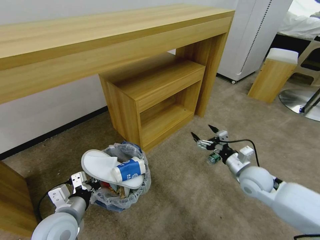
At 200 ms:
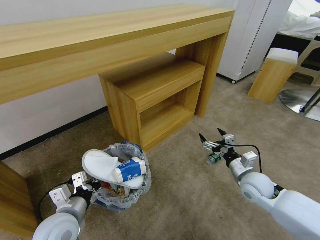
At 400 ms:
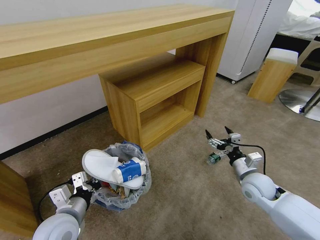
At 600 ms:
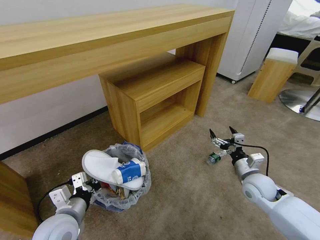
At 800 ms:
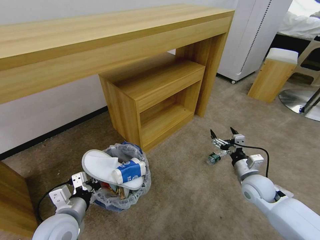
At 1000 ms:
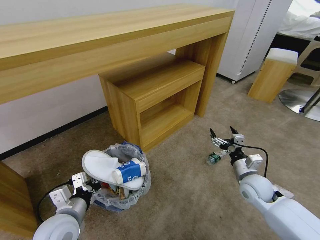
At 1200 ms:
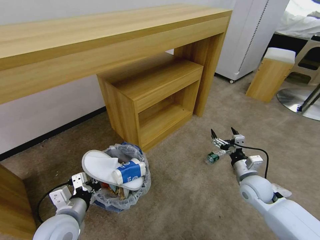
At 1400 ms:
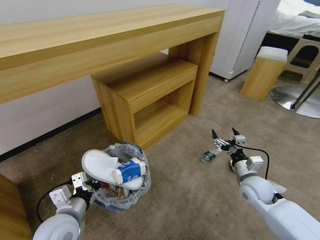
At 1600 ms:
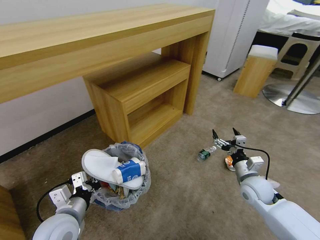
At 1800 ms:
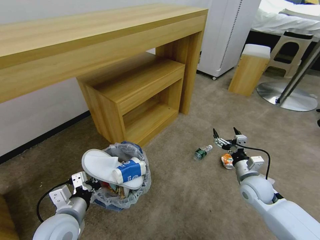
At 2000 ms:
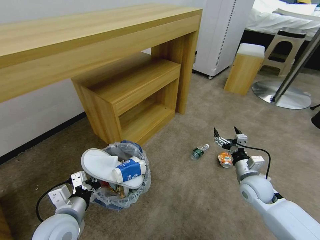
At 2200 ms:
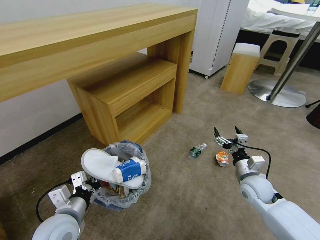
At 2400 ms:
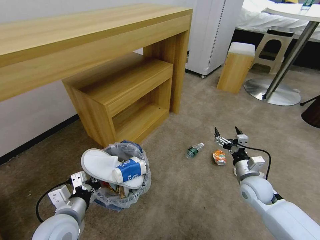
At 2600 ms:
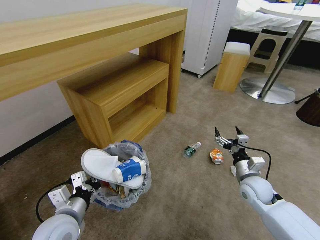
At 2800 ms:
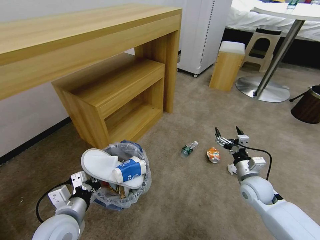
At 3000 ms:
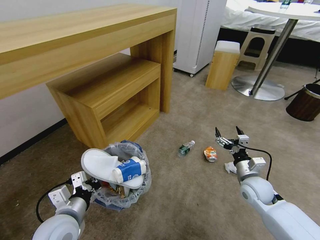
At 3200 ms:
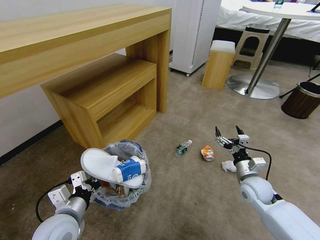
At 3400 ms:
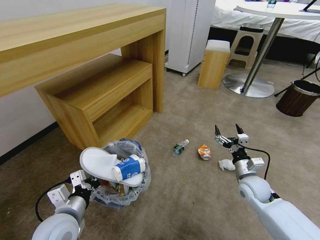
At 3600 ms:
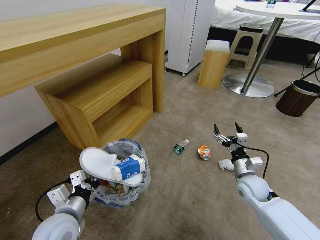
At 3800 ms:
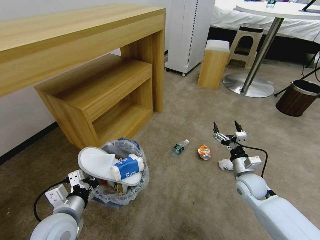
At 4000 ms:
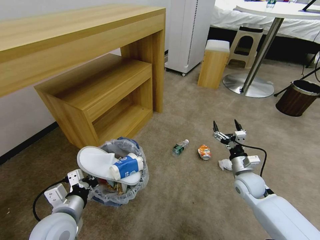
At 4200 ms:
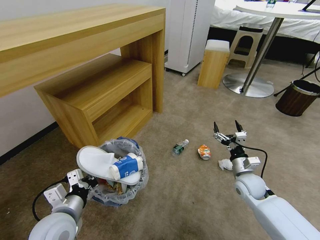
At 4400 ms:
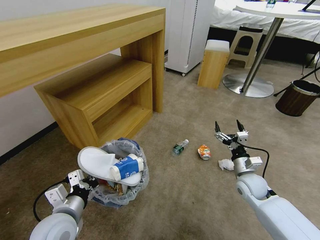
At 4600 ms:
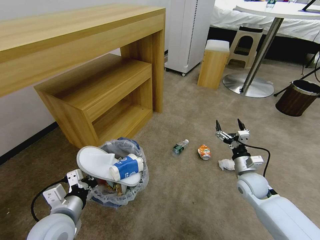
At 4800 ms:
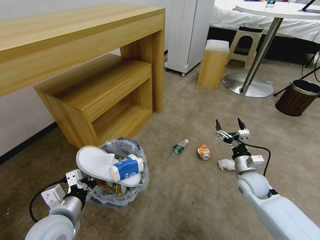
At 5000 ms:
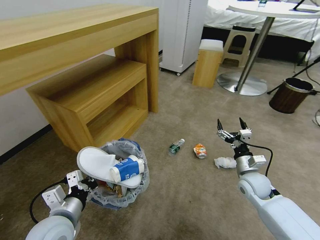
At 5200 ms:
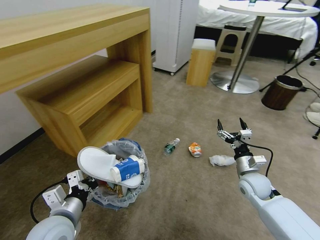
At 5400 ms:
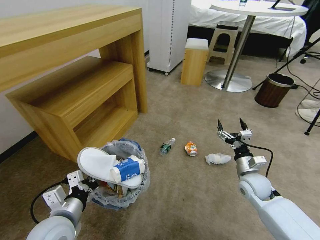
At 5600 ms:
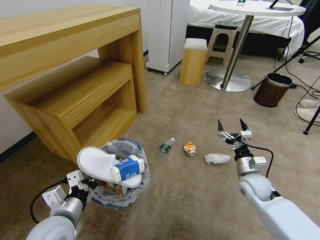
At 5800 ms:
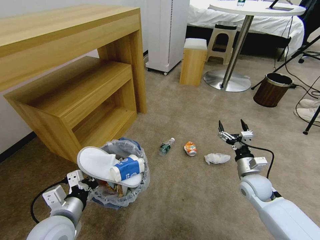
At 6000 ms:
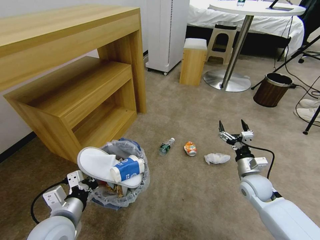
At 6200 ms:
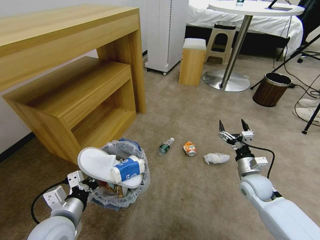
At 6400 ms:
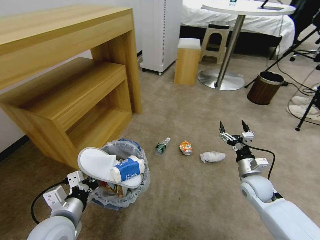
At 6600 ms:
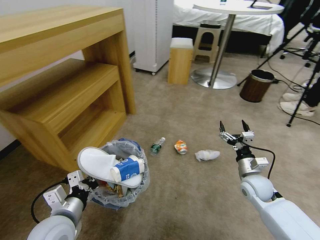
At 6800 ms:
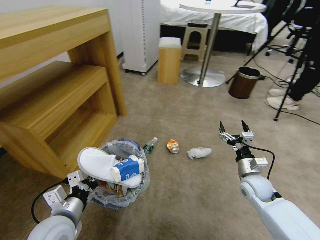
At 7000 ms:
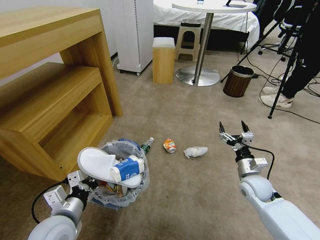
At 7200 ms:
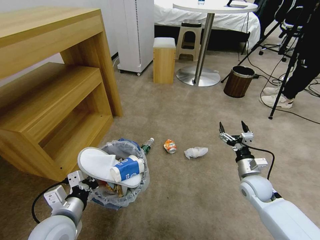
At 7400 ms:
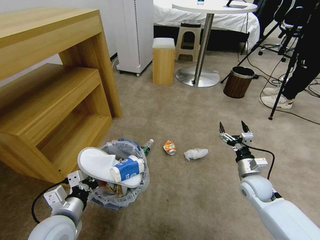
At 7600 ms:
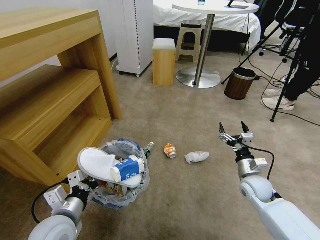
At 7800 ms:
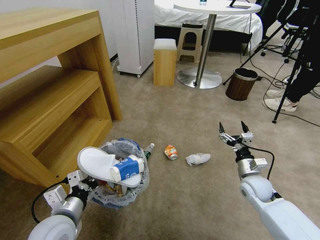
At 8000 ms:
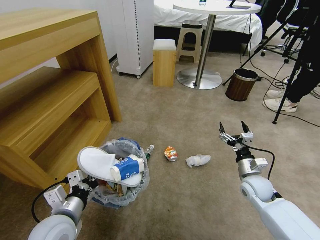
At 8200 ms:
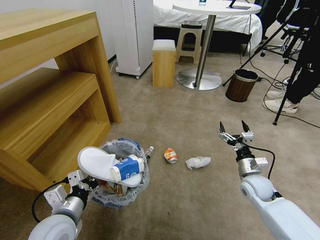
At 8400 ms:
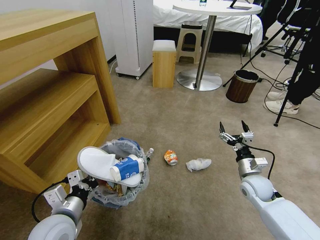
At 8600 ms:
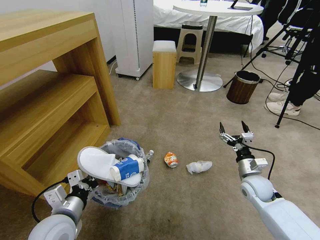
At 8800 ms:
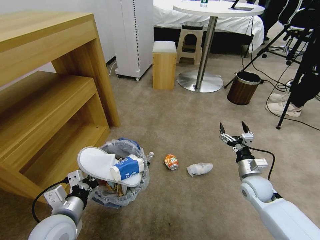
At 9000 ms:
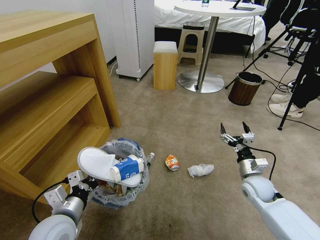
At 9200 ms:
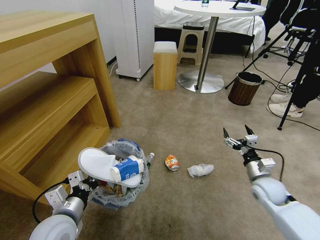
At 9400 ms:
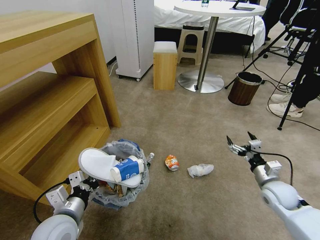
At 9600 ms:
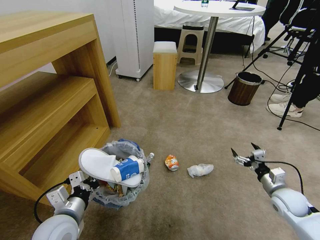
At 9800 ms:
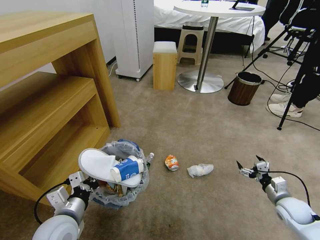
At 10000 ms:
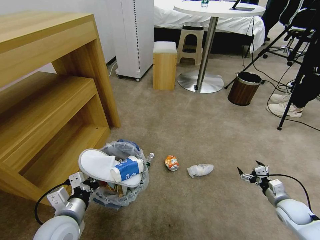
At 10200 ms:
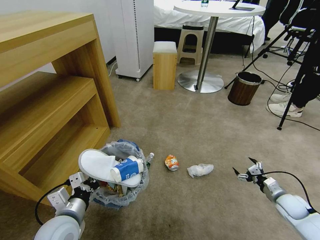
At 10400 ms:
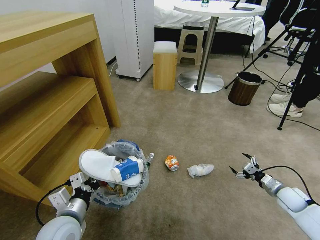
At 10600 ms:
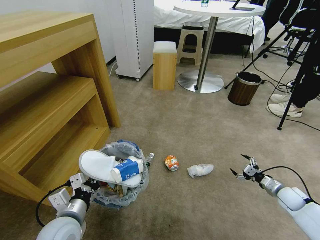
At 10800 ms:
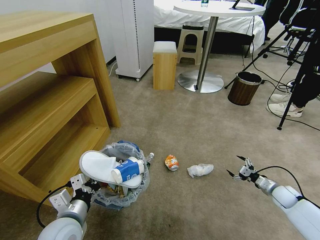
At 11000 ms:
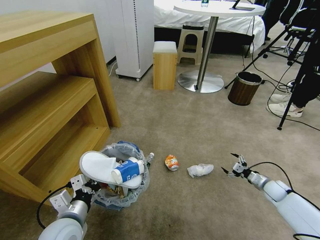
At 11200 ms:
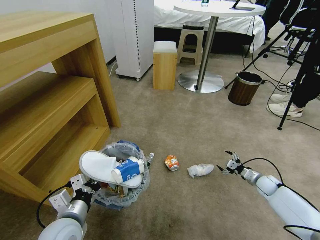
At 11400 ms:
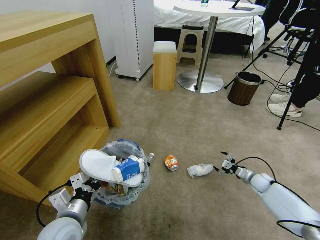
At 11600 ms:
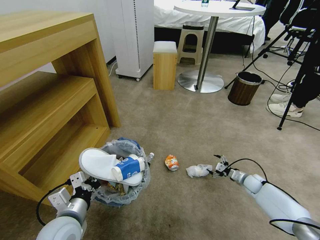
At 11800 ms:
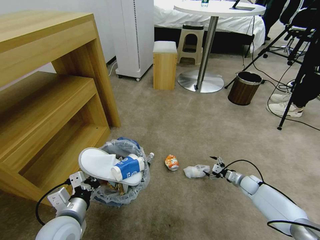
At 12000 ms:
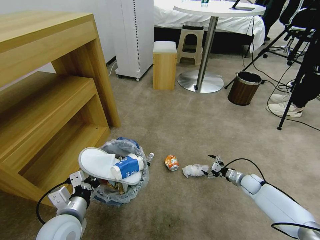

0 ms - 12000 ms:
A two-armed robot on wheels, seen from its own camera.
Task of the whole recording: Pick up the trash bin and place the garbage on the floor into it.
0 ms - 1600 ms: The right gripper moves approximately 5 cm.
9000 ms - 10400 ms: The right gripper travels to the right and downward by some 15 cm.
10400 ms - 12000 ms: The right gripper shifts roughly 15 cm forward, to the left and downward.

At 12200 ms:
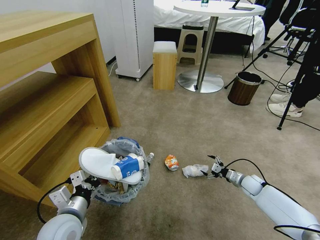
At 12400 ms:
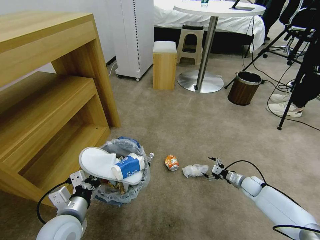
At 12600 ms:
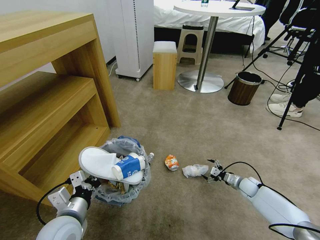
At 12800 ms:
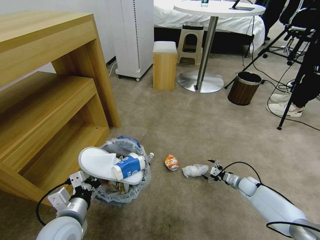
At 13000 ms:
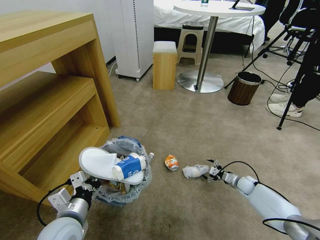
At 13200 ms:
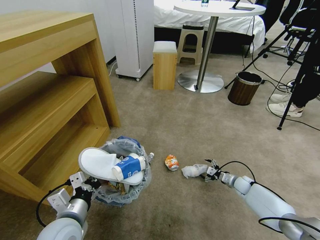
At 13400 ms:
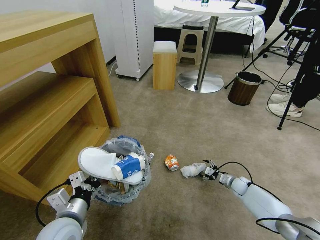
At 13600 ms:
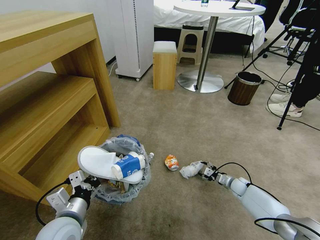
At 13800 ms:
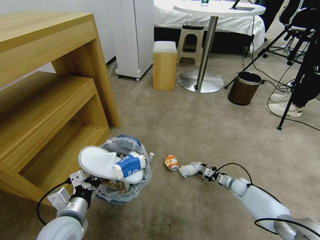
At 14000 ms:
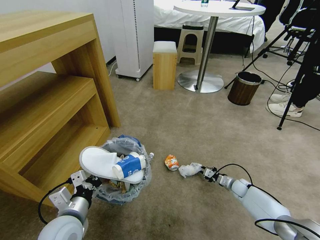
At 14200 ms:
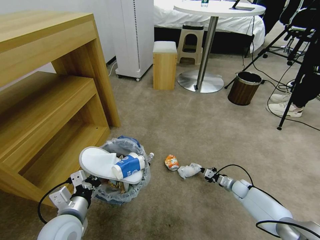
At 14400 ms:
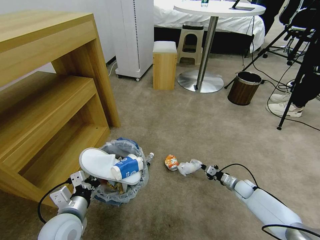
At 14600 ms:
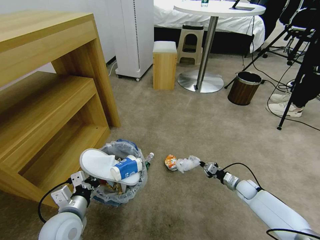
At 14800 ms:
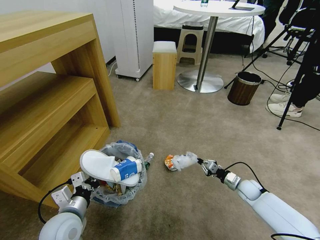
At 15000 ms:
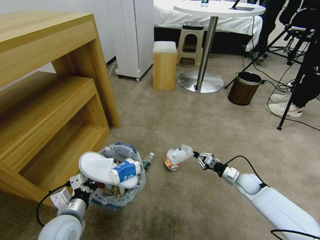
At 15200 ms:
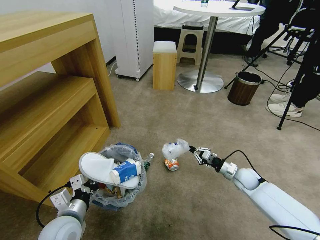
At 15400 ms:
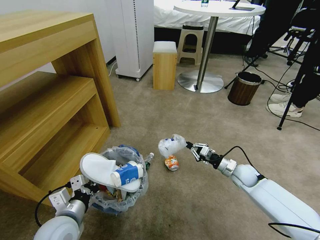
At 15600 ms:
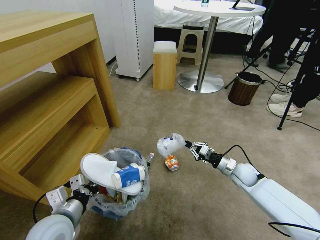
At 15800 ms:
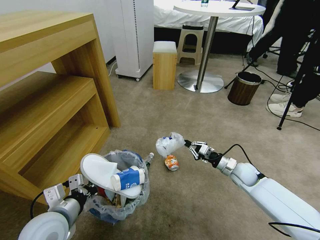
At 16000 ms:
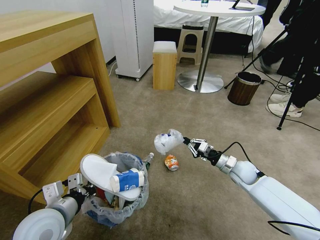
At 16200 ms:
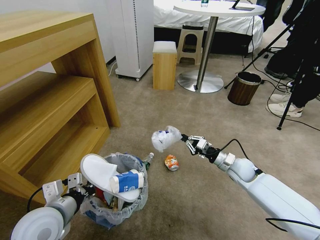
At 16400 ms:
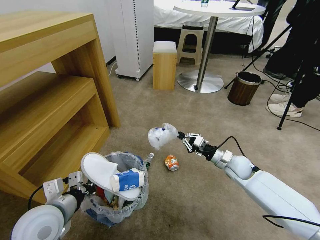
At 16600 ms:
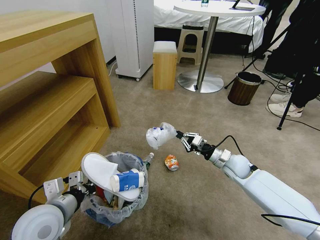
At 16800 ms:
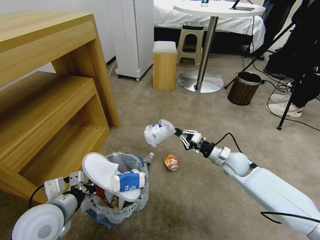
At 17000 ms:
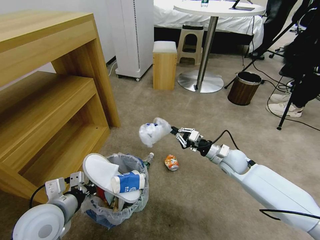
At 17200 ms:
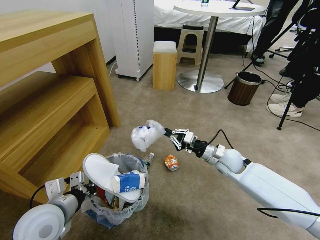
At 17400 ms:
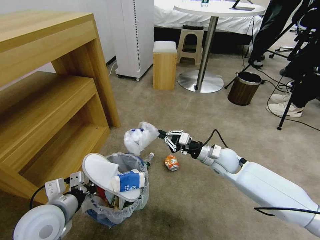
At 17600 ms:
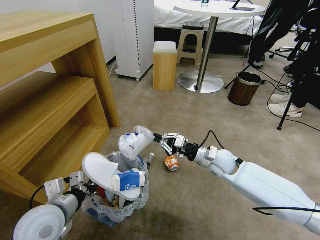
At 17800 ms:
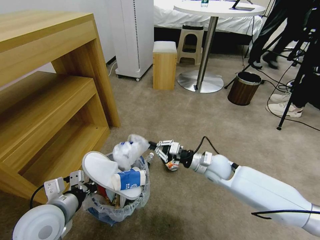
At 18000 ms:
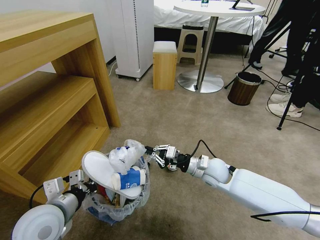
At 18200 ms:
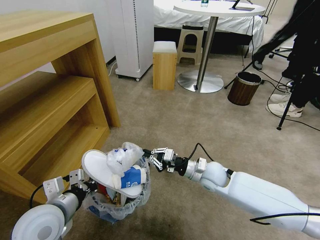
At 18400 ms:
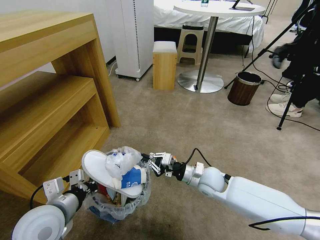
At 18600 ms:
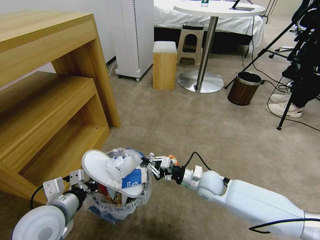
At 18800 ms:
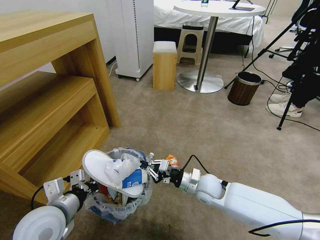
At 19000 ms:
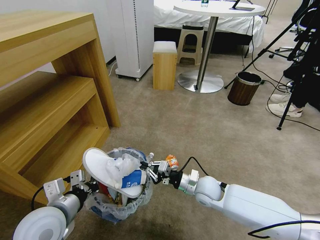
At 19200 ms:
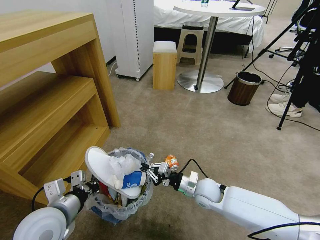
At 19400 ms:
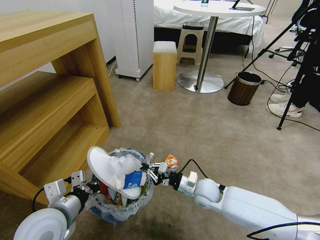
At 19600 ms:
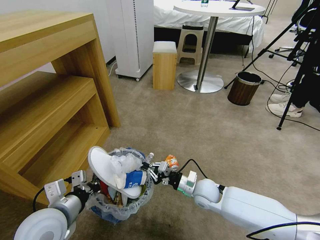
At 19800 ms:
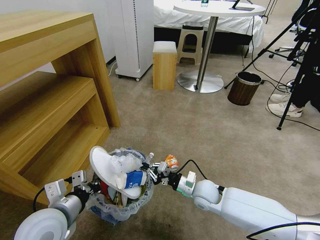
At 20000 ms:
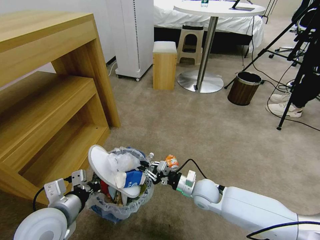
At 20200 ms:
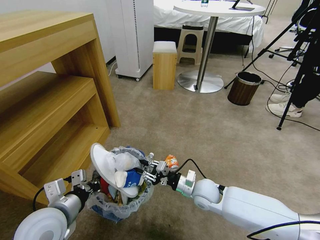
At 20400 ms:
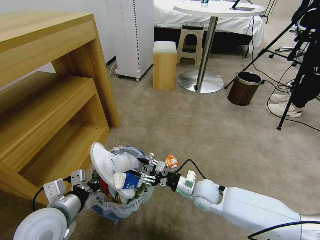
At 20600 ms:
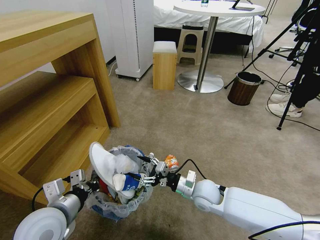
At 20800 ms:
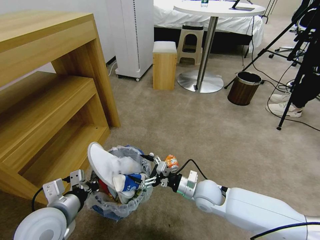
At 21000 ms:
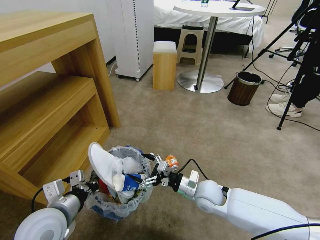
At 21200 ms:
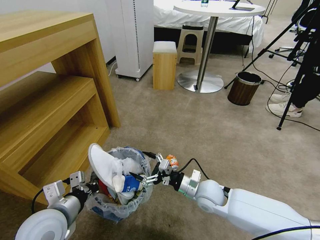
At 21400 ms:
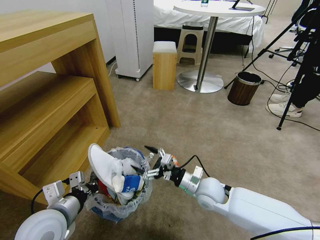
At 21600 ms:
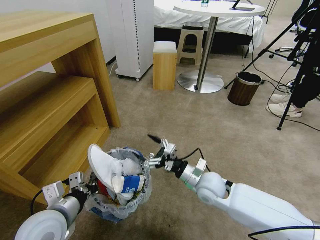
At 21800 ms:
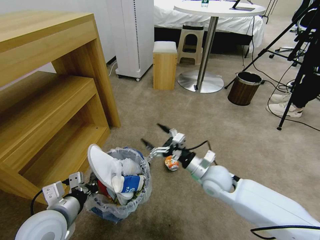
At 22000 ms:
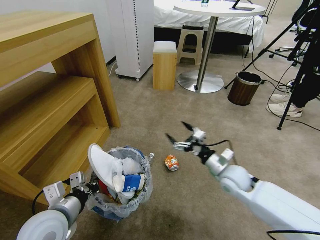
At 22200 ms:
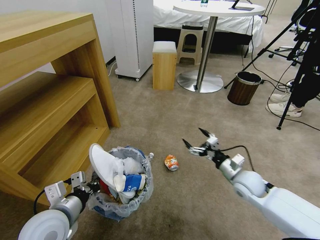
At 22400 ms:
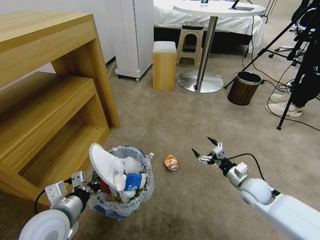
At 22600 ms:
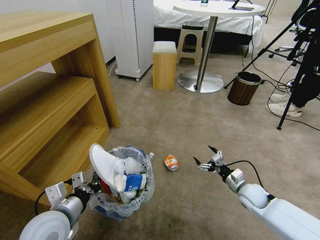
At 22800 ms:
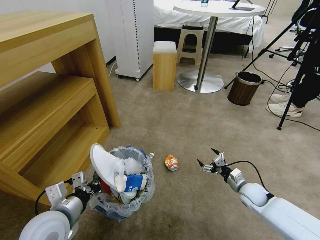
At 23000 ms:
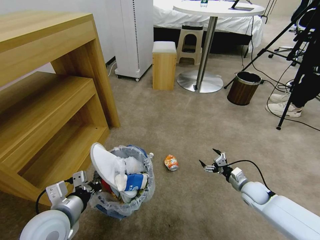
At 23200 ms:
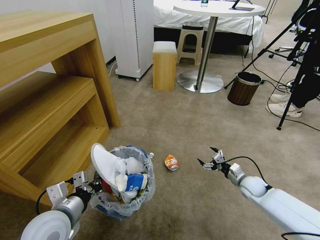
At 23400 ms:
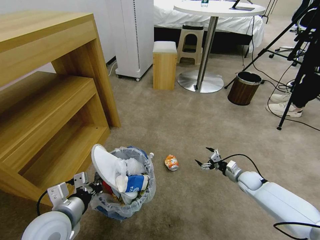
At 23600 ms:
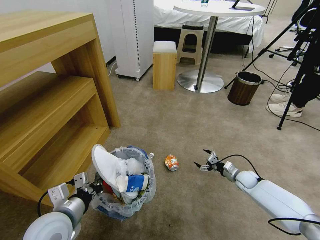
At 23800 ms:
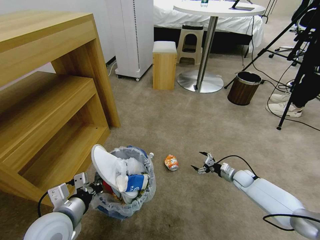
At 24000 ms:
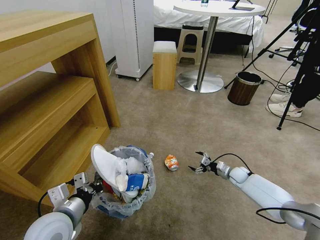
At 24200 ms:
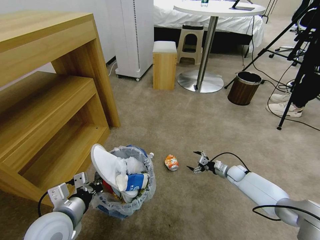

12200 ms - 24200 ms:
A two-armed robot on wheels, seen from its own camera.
Task of the whole recording: Pick up the trash bin and place the garbage on the floor into it.
12200 ms - 13800 ms: The right gripper heads downward, covering roughly 5 cm, and closes its fingers.
13800 ms - 15200 ms: The right gripper is displaced upward by about 10 cm, and closes up.
15200 ms - 16600 ms: The right gripper travels upward and to the left by approximately 10 cm, while the left gripper shifts some 5 cm upward.
16600 ms - 18200 ms: The right gripper travels to the left by roughly 10 cm.
18200 ms - 19800 ms: The right gripper travels downward by some 5 cm.
19800 ms - 21200 ms: The right gripper opens its fingers.
21200 ms - 22600 ms: The right gripper goes about 20 cm to the right.
22600 ms - 24200 ms: The right gripper goes approximately 15 cm forward and downward.
